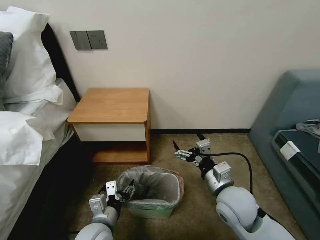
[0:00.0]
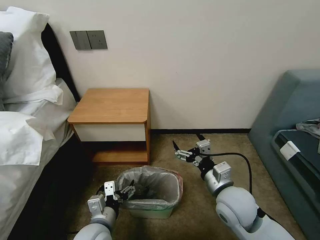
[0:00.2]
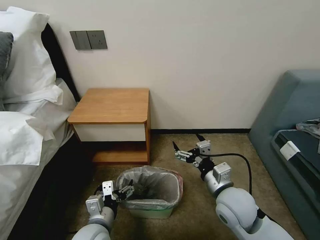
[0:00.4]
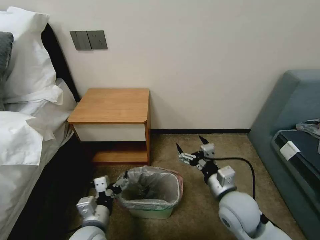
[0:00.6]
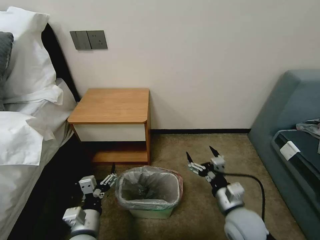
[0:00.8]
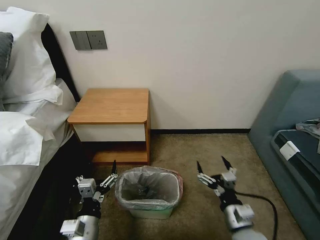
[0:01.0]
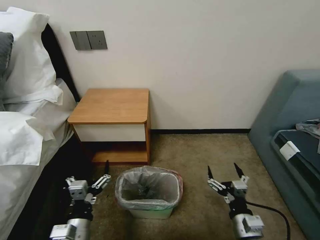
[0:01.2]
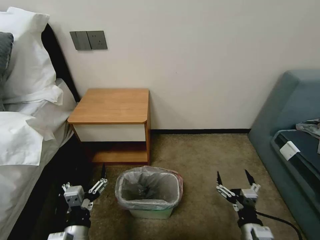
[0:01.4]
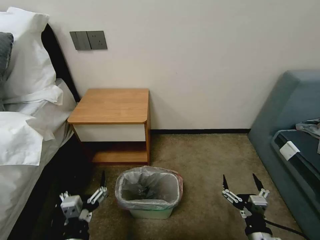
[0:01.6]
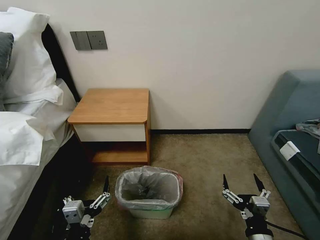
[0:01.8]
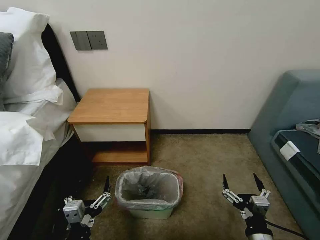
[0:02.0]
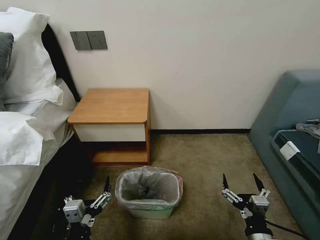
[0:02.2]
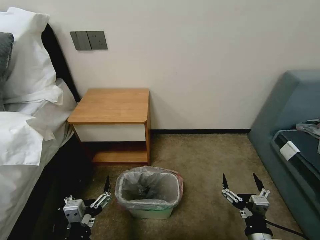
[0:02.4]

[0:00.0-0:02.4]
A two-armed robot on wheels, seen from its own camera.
Task of the whole recording: Pick up the garbage bag from the table and place it over the trash can.
0:00.0 to 0:01.2: The left gripper is displaced backward by some 5 cm, while the right gripper heads backward, downward and to the right, covering some 15 cm.
0:01.2 to 0:02.4: The left gripper goes roughly 5 cm backward. The right gripper ends up approximately 5 cm from where it was.

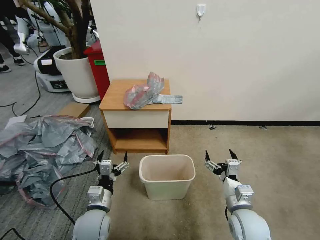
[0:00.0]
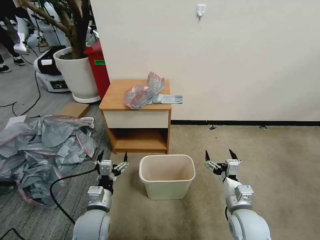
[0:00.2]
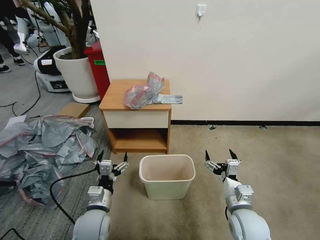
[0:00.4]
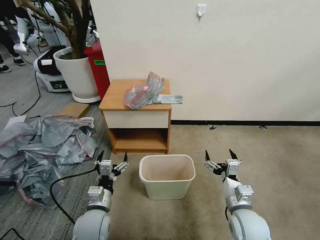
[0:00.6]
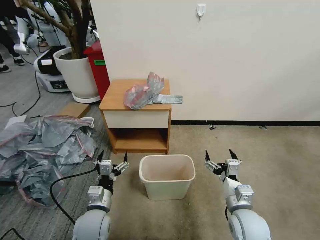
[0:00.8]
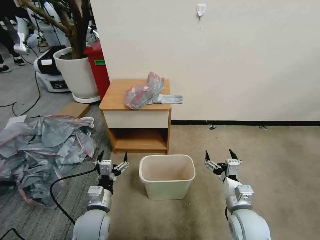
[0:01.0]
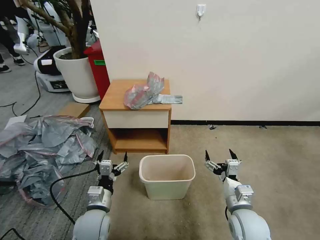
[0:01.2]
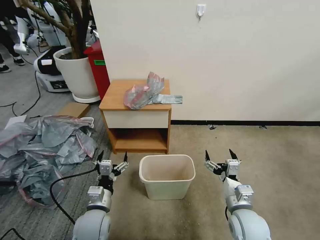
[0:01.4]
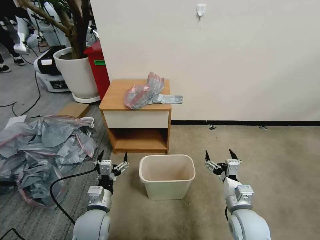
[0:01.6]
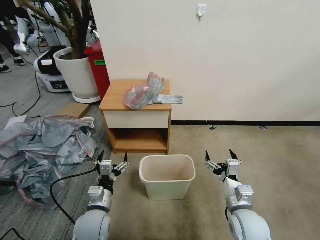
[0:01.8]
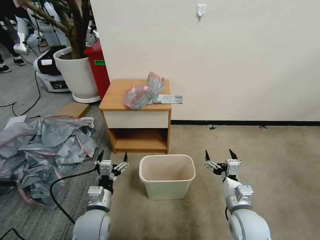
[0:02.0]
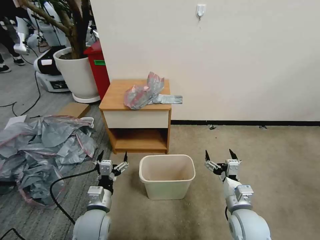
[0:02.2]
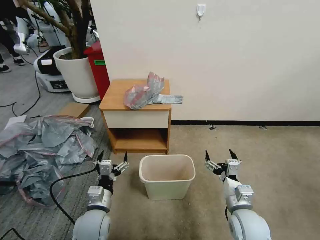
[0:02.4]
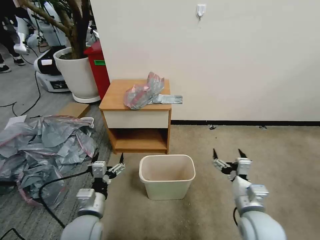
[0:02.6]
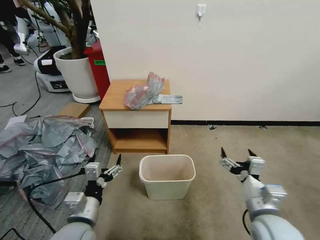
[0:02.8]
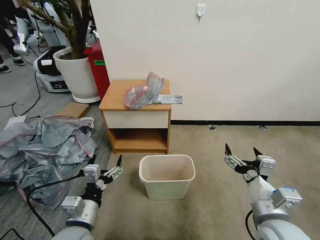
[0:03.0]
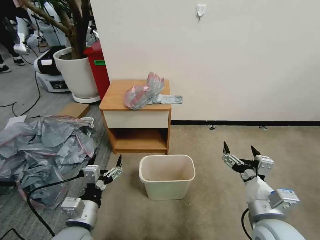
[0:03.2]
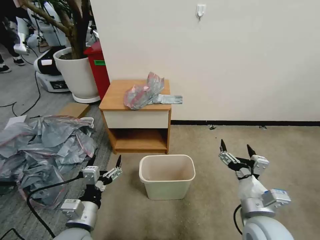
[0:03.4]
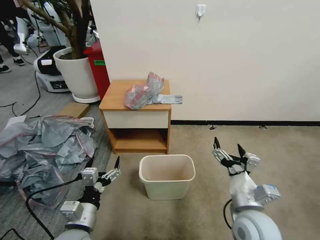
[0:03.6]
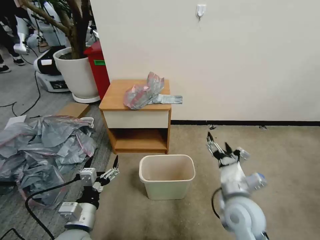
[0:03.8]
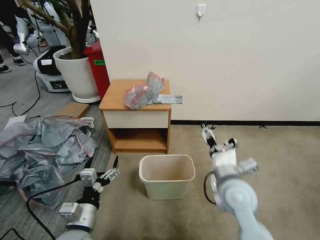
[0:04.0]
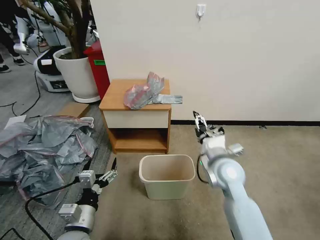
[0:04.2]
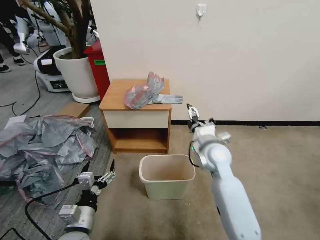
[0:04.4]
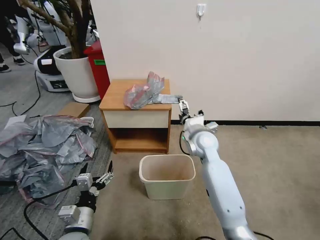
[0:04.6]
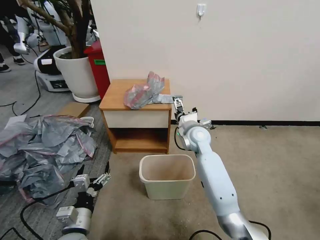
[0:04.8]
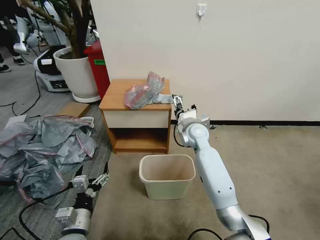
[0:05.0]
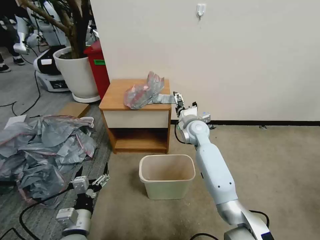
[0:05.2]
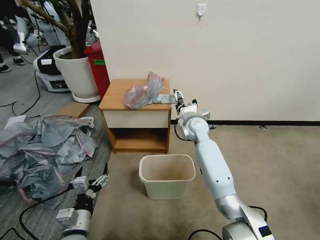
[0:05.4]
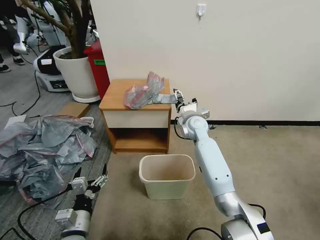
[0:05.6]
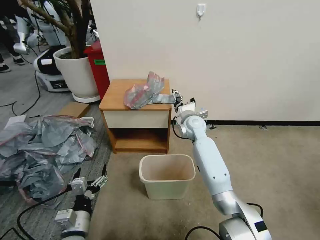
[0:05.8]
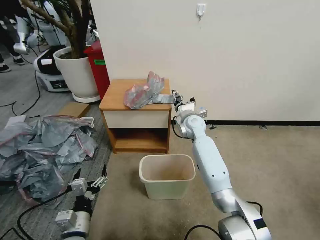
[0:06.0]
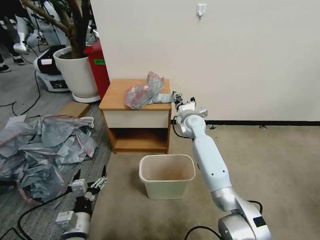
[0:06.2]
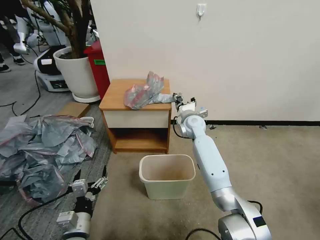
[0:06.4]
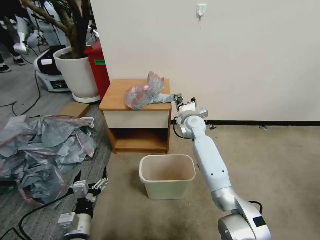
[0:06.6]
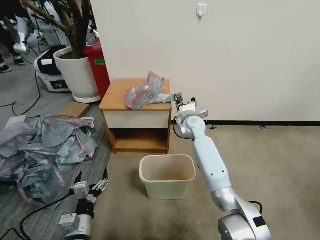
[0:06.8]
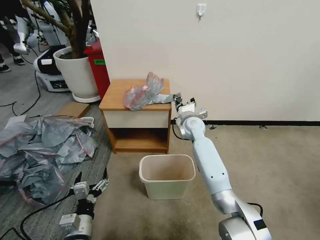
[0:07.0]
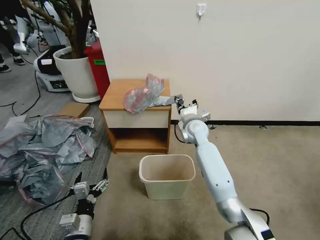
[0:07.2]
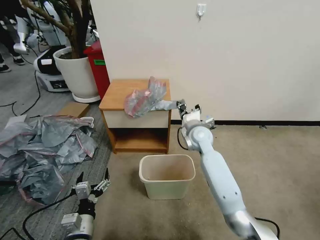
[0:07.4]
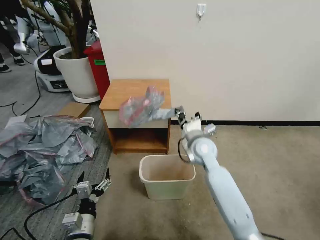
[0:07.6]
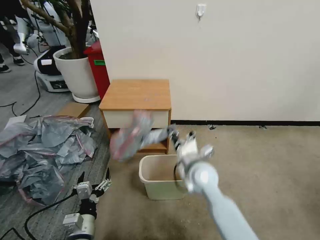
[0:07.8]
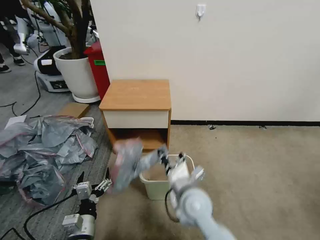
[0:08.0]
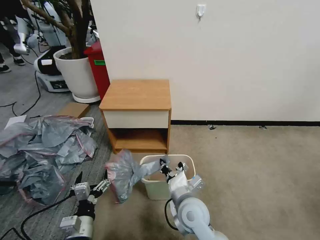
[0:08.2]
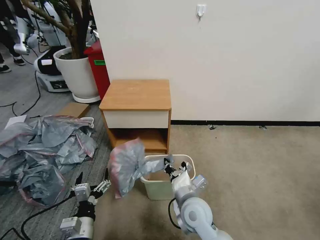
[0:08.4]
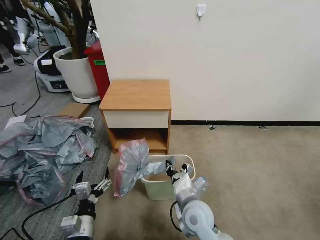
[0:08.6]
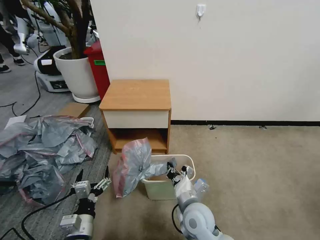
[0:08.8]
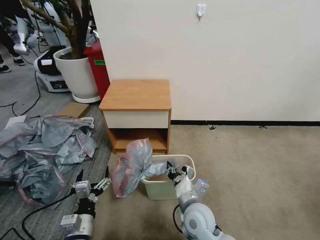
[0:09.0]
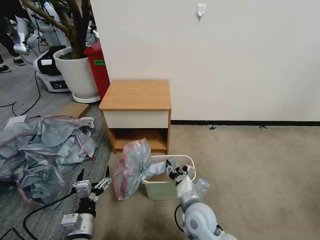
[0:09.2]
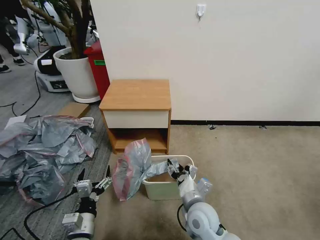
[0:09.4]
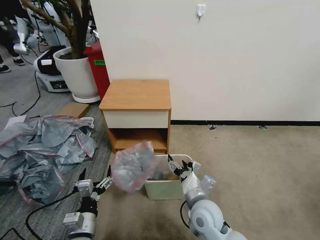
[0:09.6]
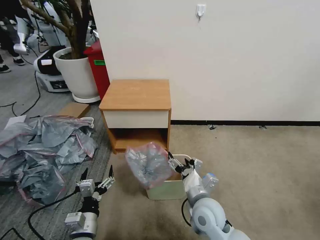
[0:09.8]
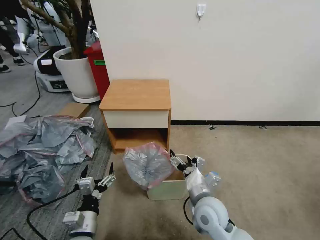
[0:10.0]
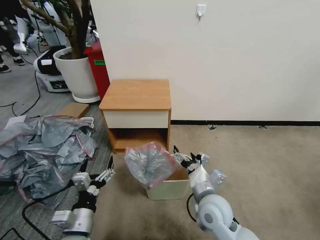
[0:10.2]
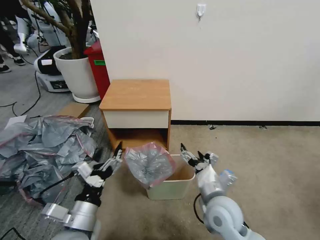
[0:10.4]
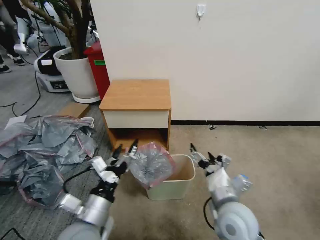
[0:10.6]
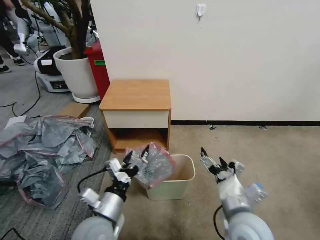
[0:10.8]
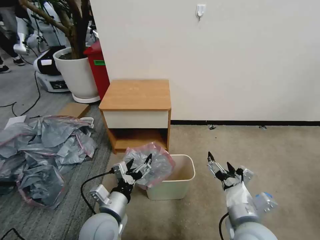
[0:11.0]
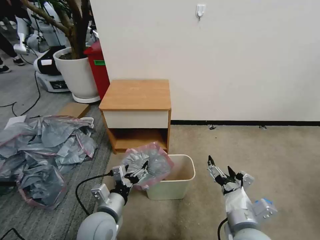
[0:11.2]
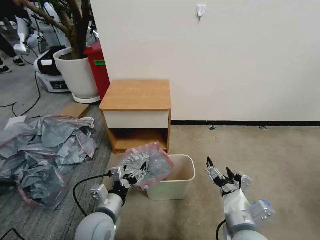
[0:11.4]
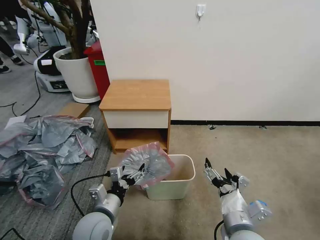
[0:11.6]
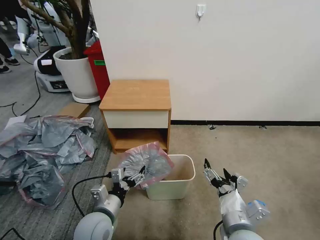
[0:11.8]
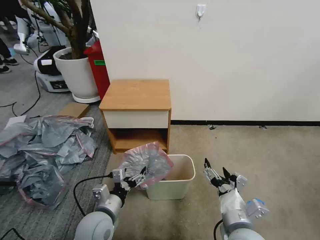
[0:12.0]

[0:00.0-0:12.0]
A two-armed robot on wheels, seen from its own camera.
Task of the whole recording: Pick up the garbage bag from the table and place it over the trash can.
0:01.6 to 0:03.0: The left gripper moves upward and backward, some 10 cm. Meanwhile the right gripper travels upward by some 10 cm.
0:03.0 to 0:04.4: The left gripper moves roughly 5 cm, while the right gripper heads forward, covering some 25 cm.
0:04.4 to 0:06.0: The right gripper heads forward, covering about 15 cm, and closes up.
0:06.0 to 0:07.6: The right gripper is displaced backward by some 10 cm, and closes its fingers.
0:07.6 to 0:09.0: The right gripper goes some 20 cm backward and downward.
0:09.0 to 0:10.4: The right gripper goes some 10 cm upward and to the right, and opens up; the left gripper goes roughly 10 cm upward.
0:10.4 to 0:12.0: The right gripper is displaced backward by about 10 cm; the left gripper goes some 10 cm downward and forward.

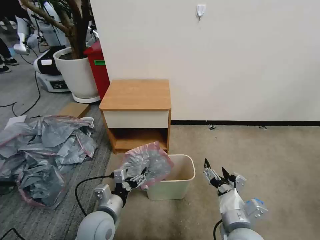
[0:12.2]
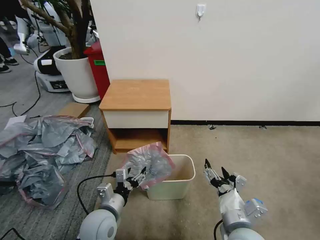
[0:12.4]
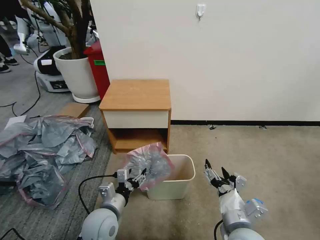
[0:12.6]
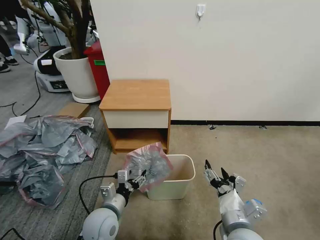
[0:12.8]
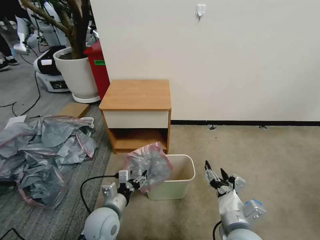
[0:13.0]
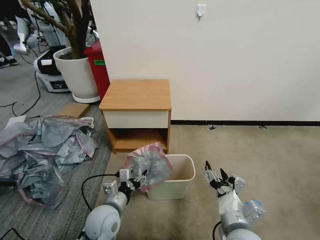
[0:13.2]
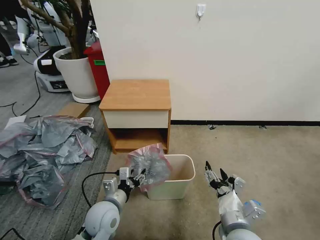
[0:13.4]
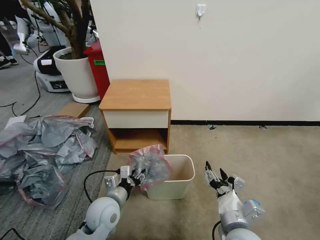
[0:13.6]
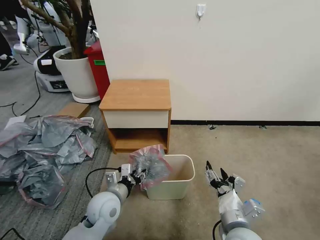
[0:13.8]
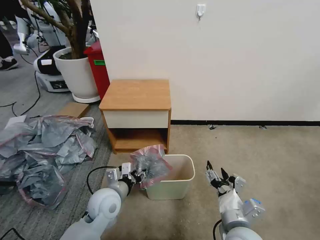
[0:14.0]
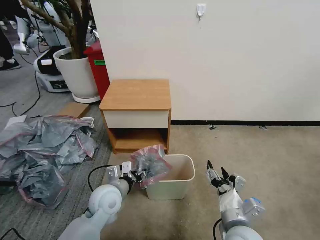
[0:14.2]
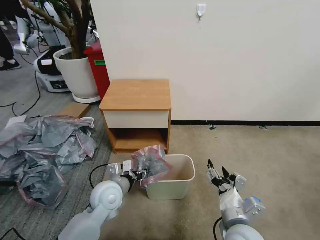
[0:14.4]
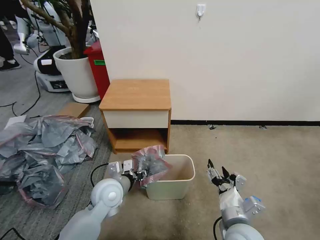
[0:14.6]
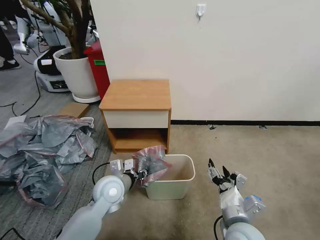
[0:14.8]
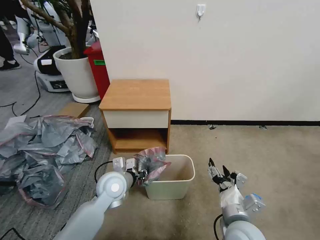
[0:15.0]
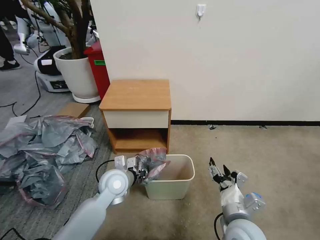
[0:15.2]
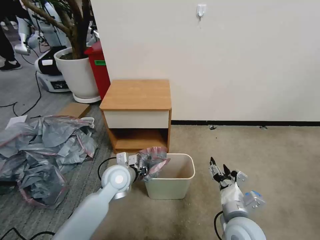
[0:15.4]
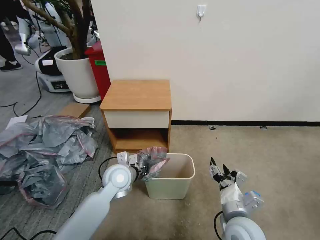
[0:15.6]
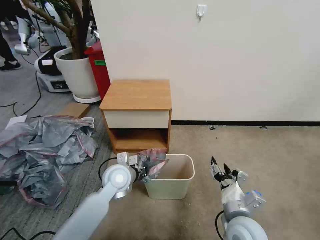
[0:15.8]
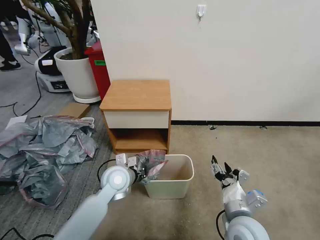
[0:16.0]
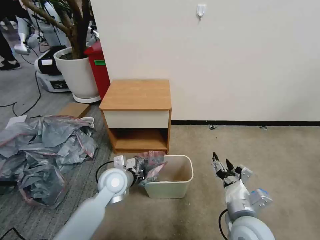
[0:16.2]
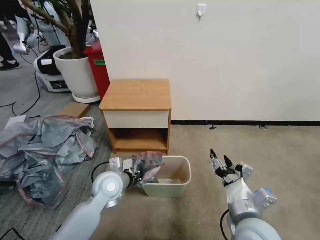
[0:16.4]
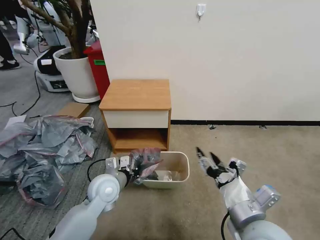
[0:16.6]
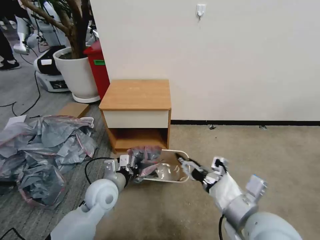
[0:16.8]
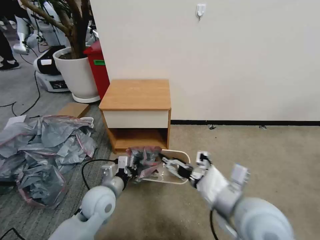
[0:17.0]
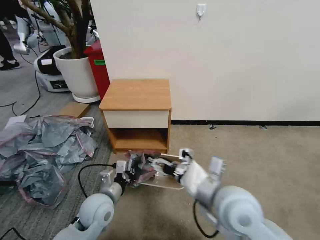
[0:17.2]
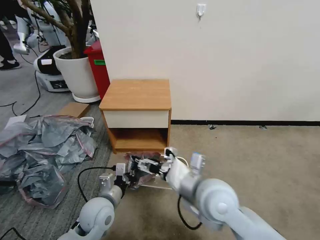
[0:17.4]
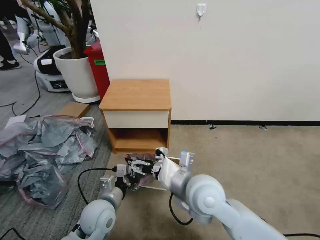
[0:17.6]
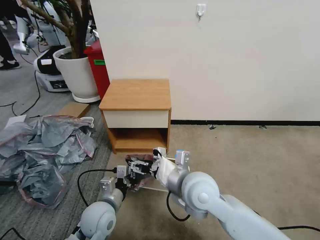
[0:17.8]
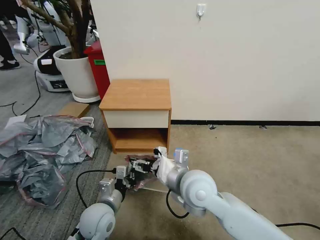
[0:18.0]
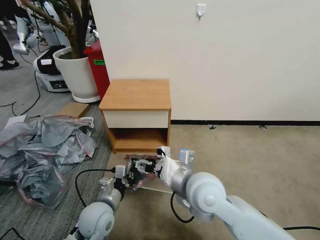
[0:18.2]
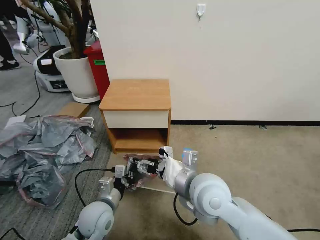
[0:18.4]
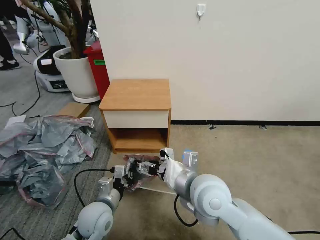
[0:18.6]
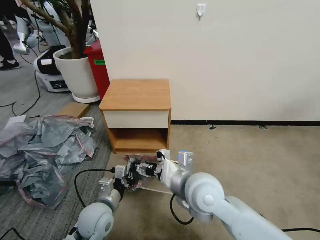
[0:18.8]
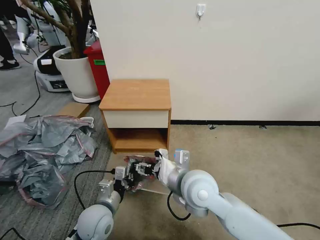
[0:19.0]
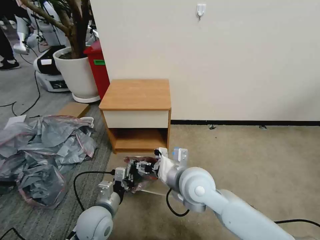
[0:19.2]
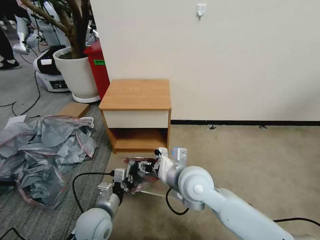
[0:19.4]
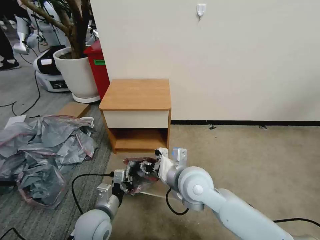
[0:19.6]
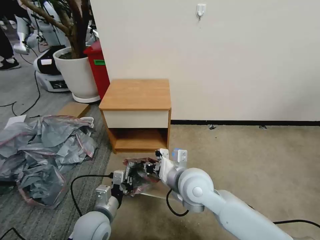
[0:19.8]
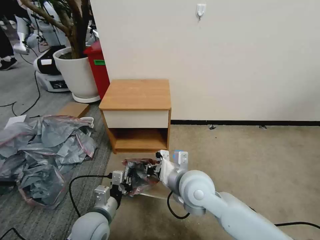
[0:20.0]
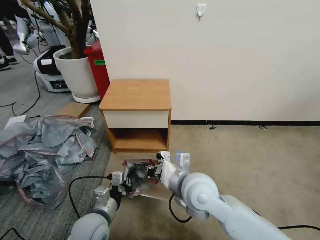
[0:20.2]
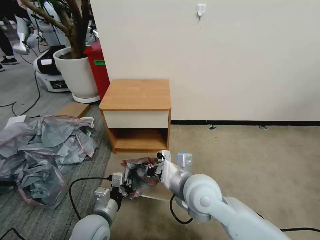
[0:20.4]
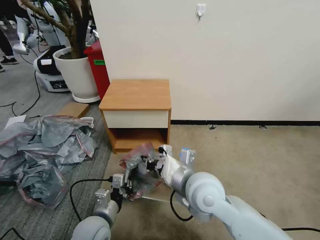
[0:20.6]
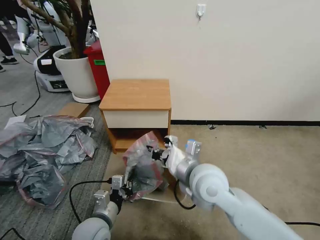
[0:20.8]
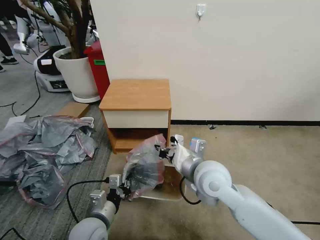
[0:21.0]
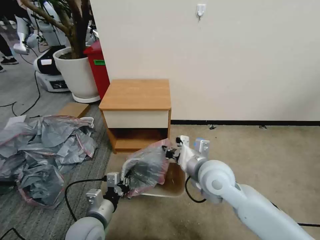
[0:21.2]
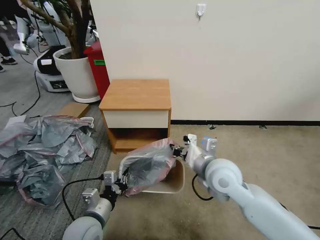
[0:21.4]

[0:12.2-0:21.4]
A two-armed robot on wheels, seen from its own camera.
Task of the whole recording: Pick up the garbage bag from the table and place it over the trash can.
0:12.2 to 0:13.8: The left gripper moves forward, about 5 cm, and closes its fingers.
0:13.8 to 0:15.2: The left gripper travels forward by approximately 5 cm.
0:15.2 to 0:16.8: The right gripper shifts roughly 15 cm upward. The left gripper ends up roughly 5 cm from where it was, and closes up.
0:16.8 to 0:18.4: The left gripper moves backward, roughly 5 cm, while the right gripper travels to the left and forward by roughly 15 cm.
0:18.4 to 0:19.8: The right gripper moves about 5 cm, and closes up.
0:19.8 to 0:21.4: The right gripper goes approximately 10 cm to the right.
